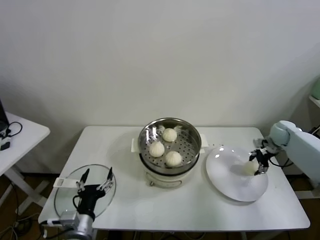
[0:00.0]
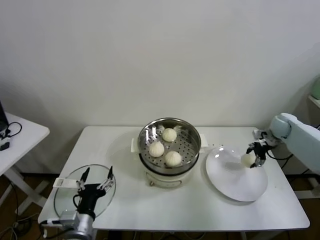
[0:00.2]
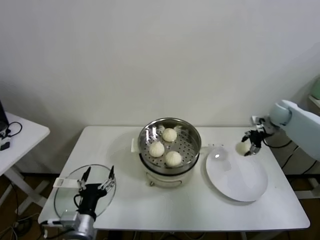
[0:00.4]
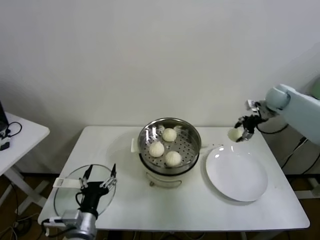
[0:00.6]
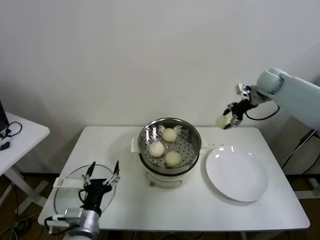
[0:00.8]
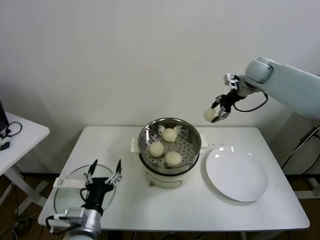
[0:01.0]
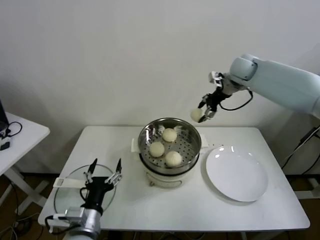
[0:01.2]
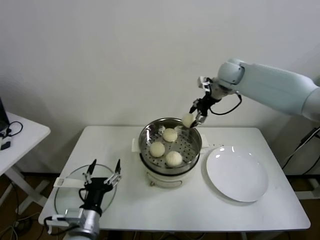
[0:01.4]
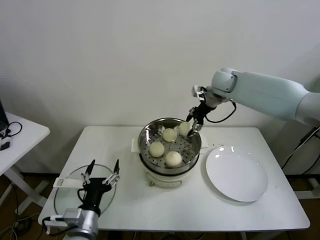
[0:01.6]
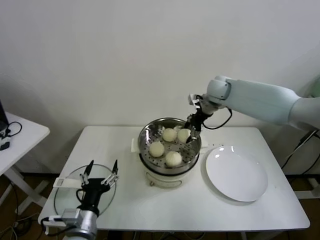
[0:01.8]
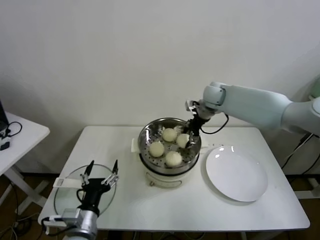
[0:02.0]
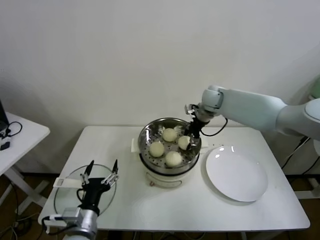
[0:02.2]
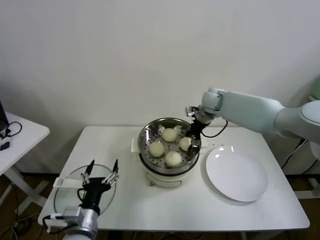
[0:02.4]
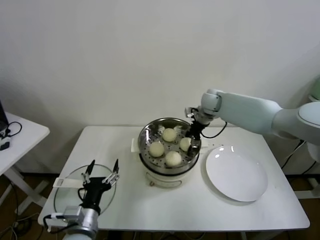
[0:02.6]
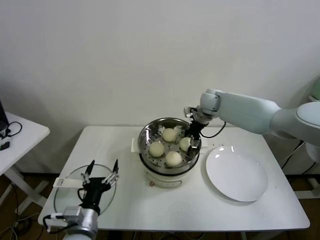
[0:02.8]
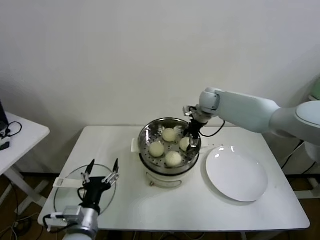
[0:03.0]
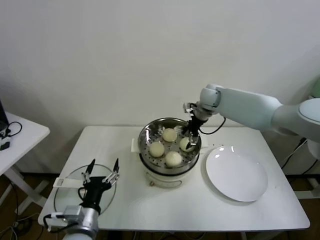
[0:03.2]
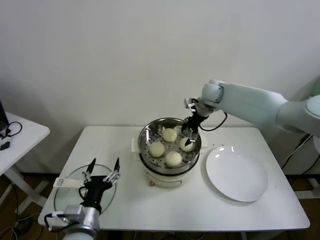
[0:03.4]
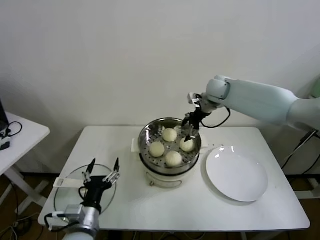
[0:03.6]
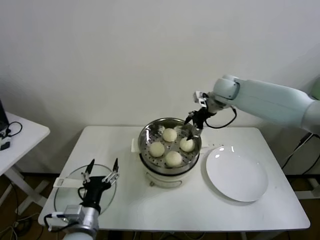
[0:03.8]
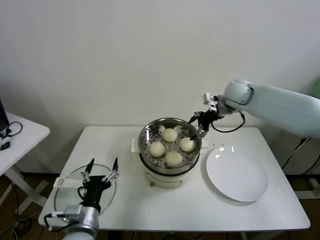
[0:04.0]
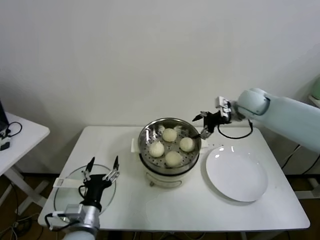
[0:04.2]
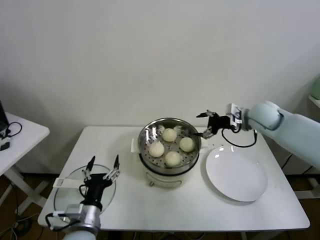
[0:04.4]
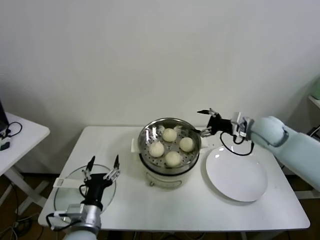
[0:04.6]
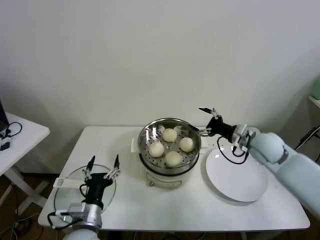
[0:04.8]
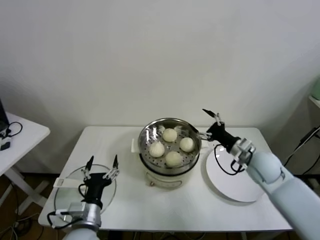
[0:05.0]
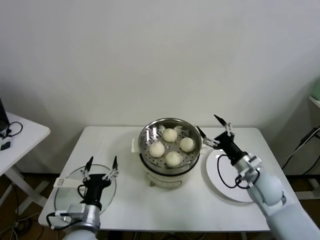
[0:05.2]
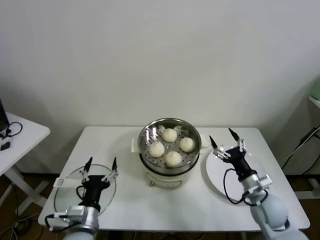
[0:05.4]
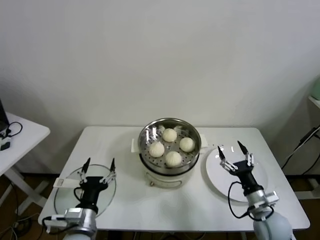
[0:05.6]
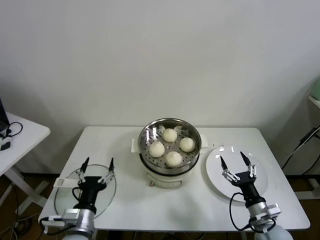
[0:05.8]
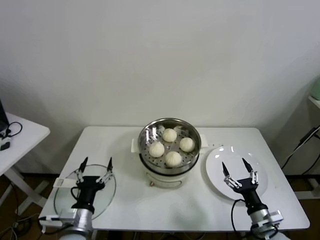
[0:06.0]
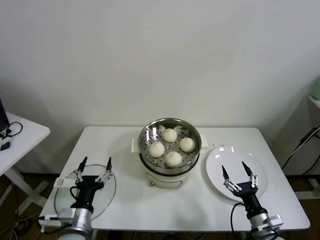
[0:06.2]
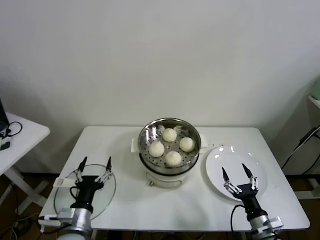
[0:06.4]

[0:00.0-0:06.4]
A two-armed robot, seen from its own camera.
Task of the whole recording: take steamed baozi put them in steamer.
Step, 0:00.0 to 0:02.8: Place the baozi on the steamer with right gripper.
0:00.0 to 0:01.6: The right gripper is displaced to the left and upward by approximately 35 cm.
0:01.6 to 0:03.2: The right gripper moves downward, about 5 cm, and opens up.
0:03.2 to 0:04.8: The right gripper travels backward and to the right by approximately 25 cm.
0:04.8 to 0:06.4: The right gripper moves backward and downward, about 30 cm.
